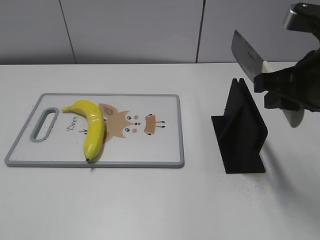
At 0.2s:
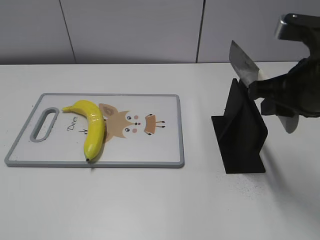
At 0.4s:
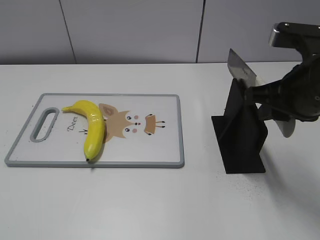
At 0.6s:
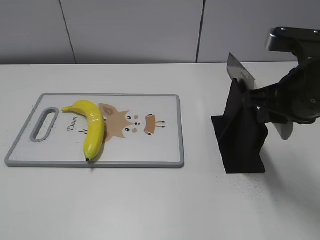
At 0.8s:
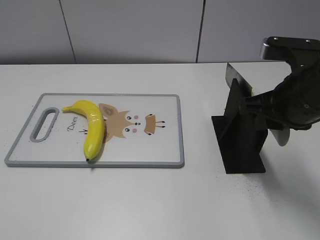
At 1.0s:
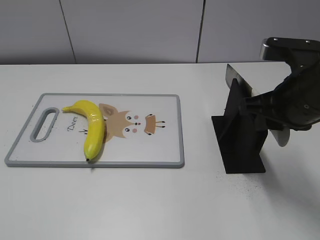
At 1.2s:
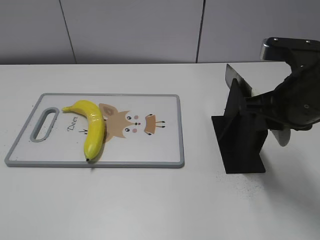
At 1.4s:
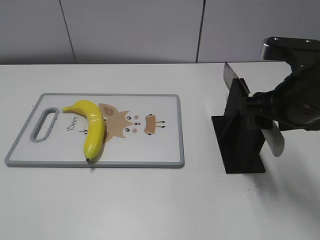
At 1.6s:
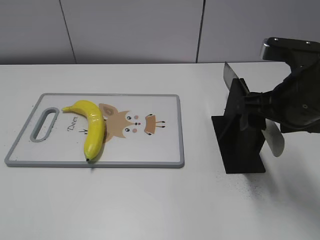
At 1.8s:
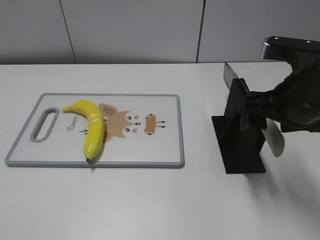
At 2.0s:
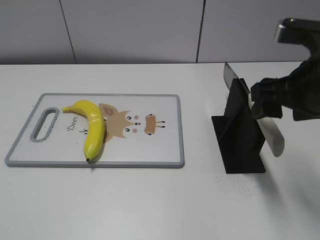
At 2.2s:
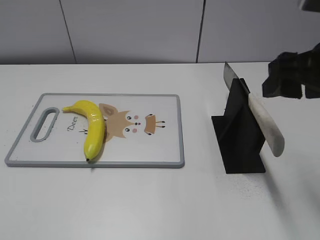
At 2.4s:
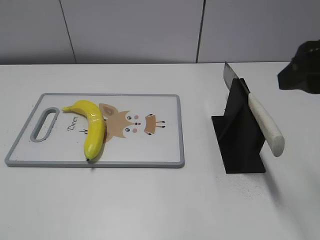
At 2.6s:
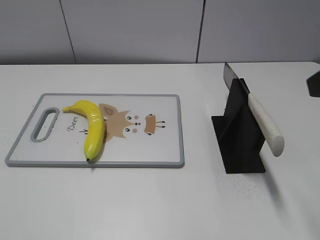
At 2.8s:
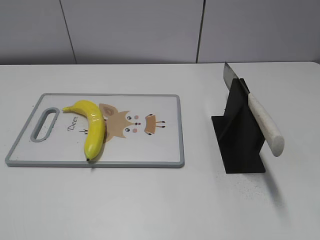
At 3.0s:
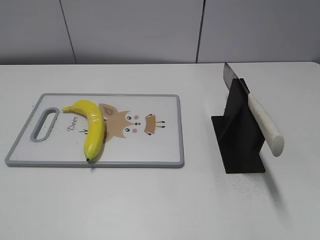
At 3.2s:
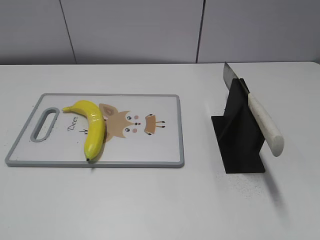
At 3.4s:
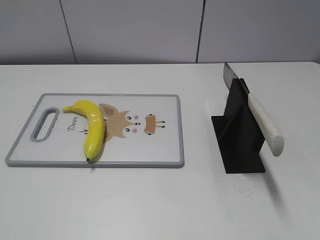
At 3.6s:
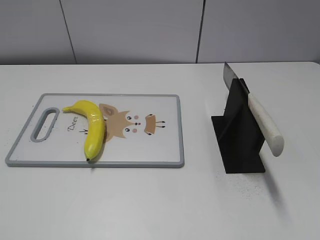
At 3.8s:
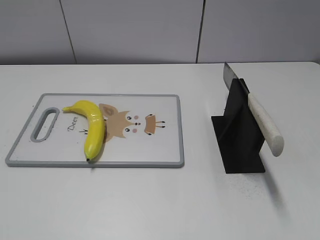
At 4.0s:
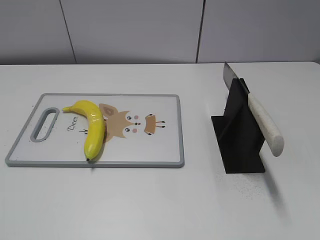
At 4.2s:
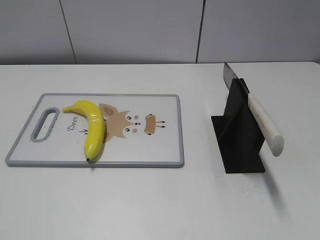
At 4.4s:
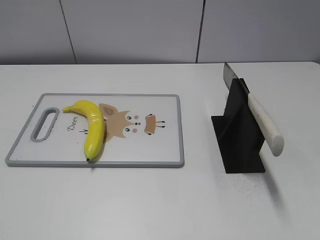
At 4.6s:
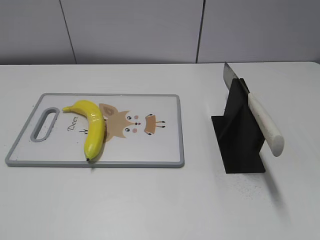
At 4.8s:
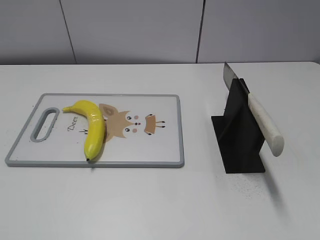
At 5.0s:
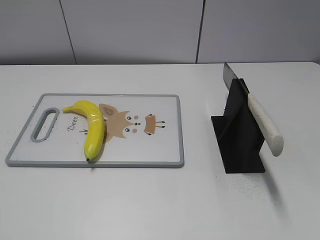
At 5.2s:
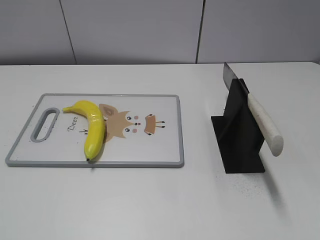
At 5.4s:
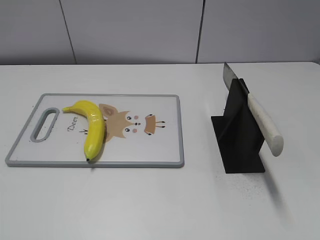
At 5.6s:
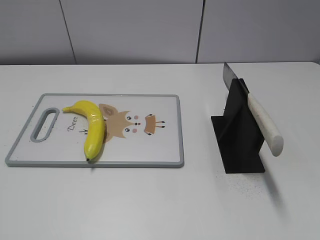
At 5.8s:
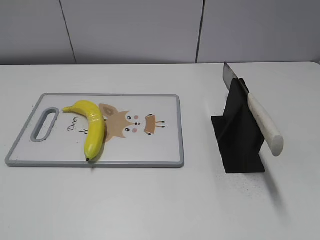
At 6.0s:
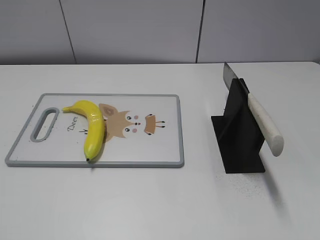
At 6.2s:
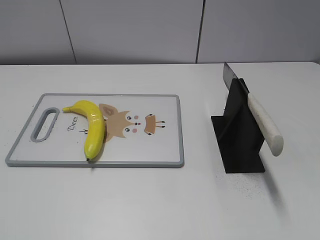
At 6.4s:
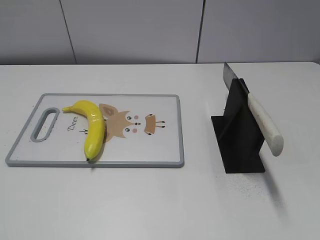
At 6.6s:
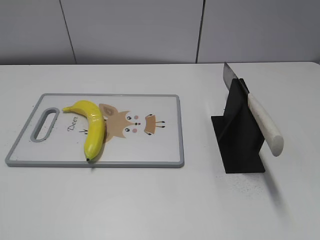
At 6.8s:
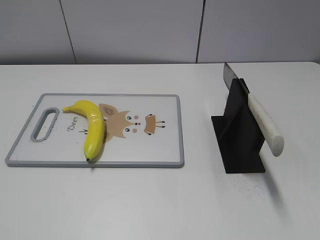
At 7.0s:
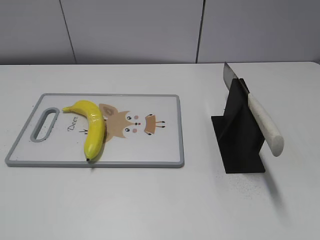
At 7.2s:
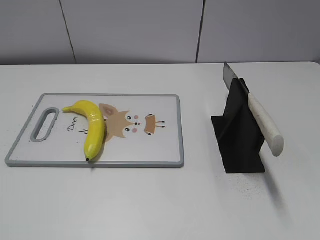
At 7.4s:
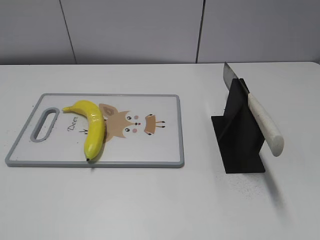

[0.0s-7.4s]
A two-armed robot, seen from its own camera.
Task of the whole recording: cut plastic banana.
Step, 0.0s to 7.4s: Place the knife on the storage rack with your right hand.
0.0s to 1.4s: The right gripper opens.
1.4s to 3.0s: The right gripper moves backward, upward and to the right, roughly 20 cm.
6.0s to 7.4s: The two grippers keep their place.
